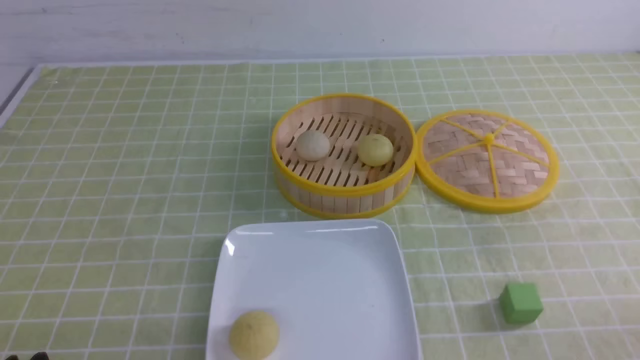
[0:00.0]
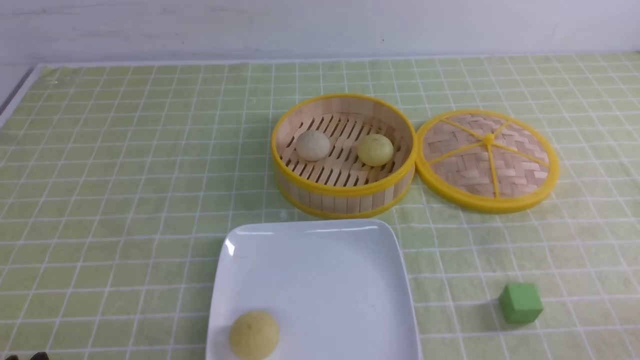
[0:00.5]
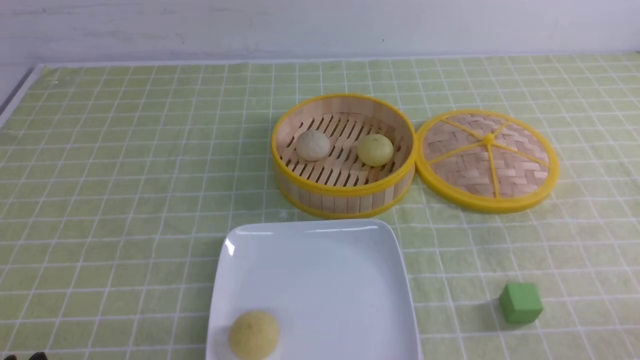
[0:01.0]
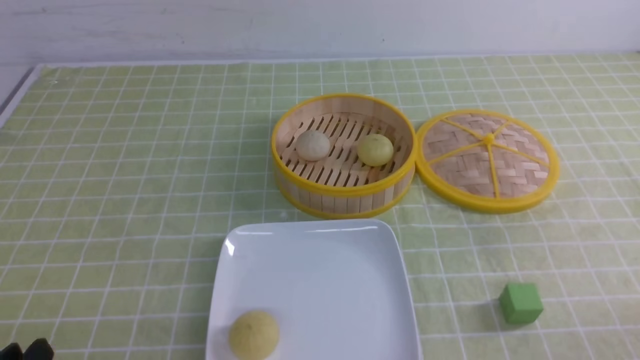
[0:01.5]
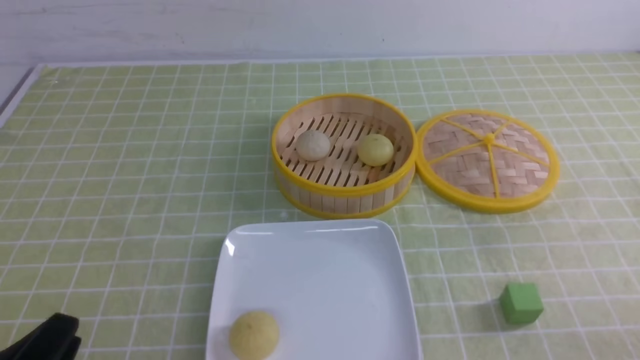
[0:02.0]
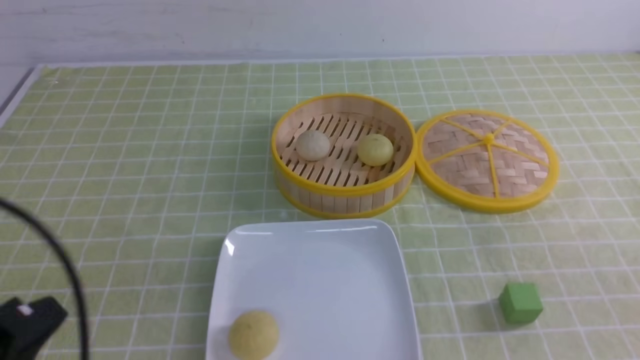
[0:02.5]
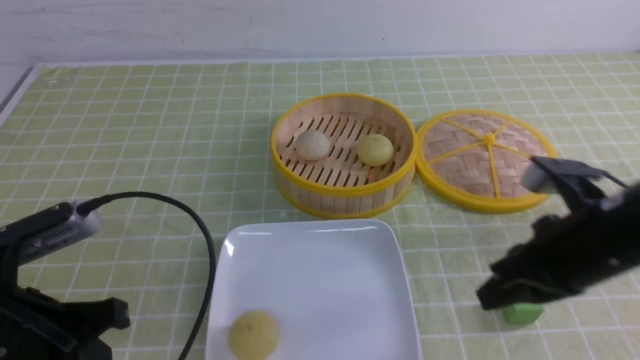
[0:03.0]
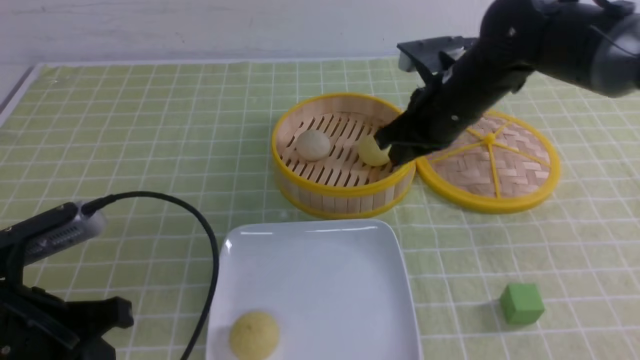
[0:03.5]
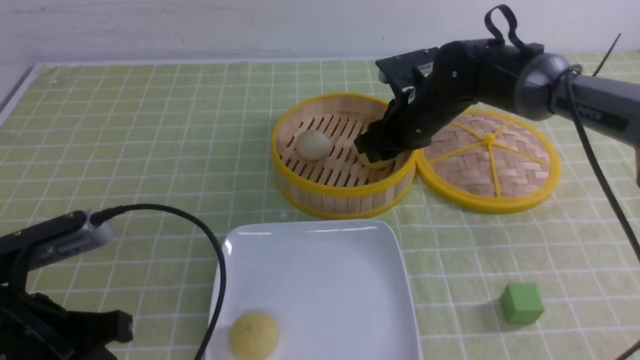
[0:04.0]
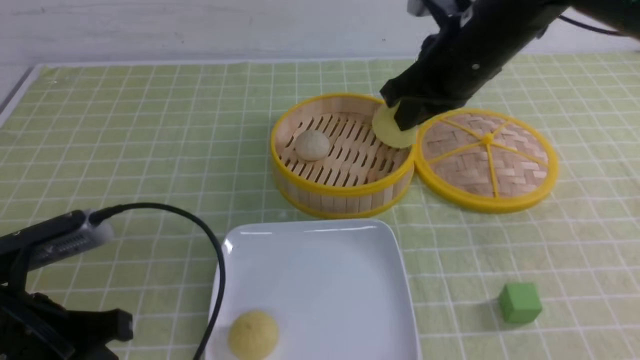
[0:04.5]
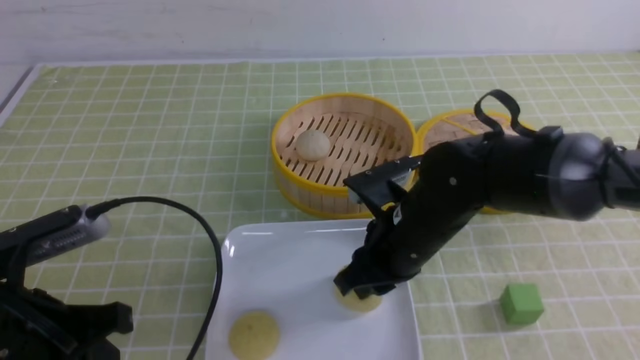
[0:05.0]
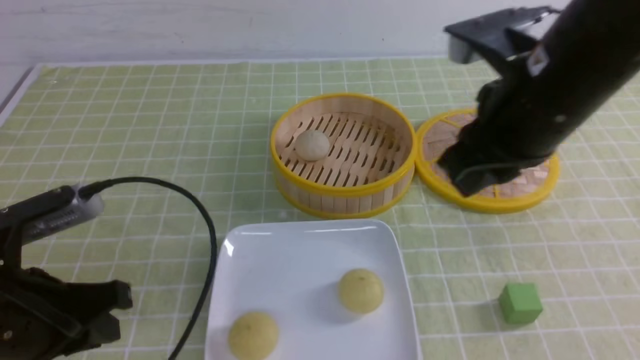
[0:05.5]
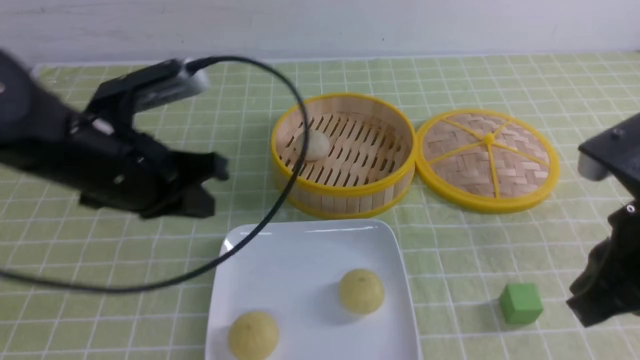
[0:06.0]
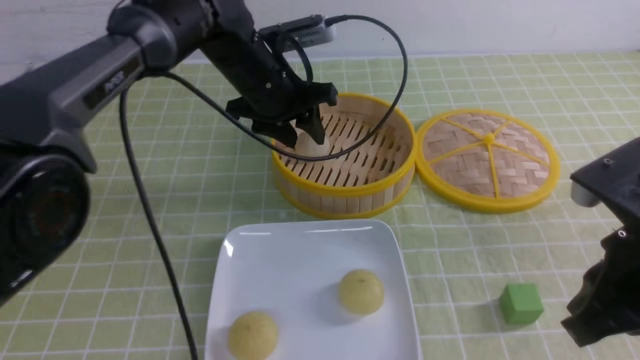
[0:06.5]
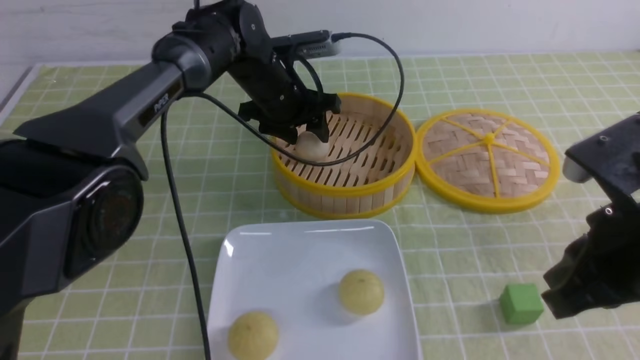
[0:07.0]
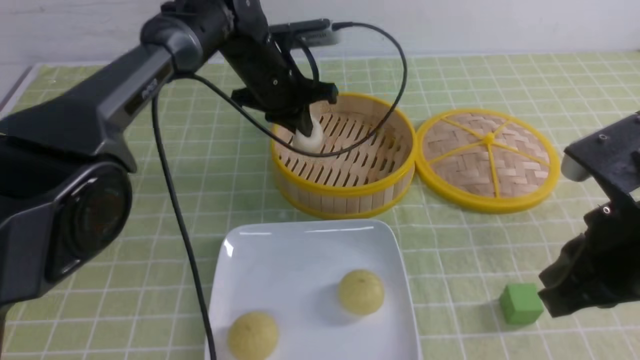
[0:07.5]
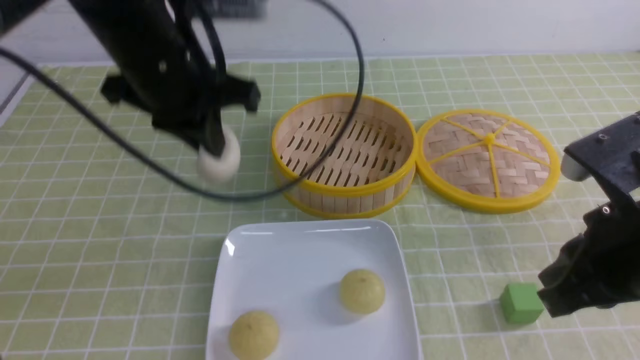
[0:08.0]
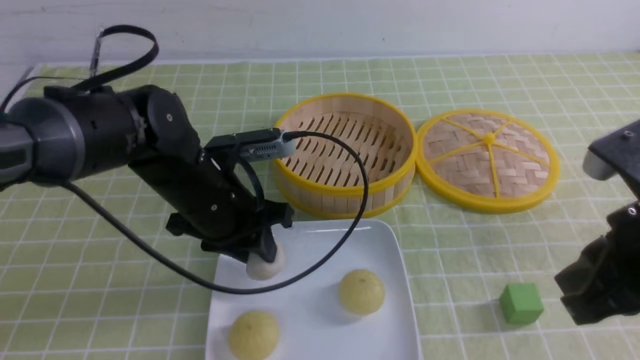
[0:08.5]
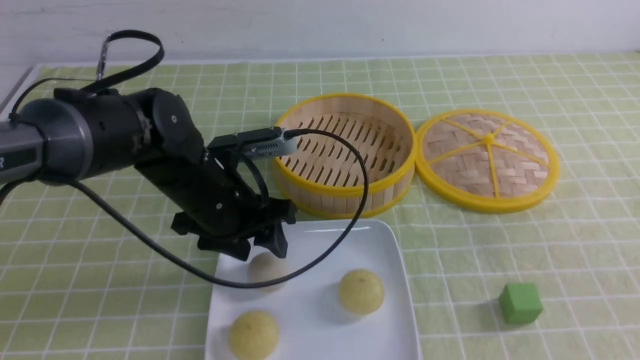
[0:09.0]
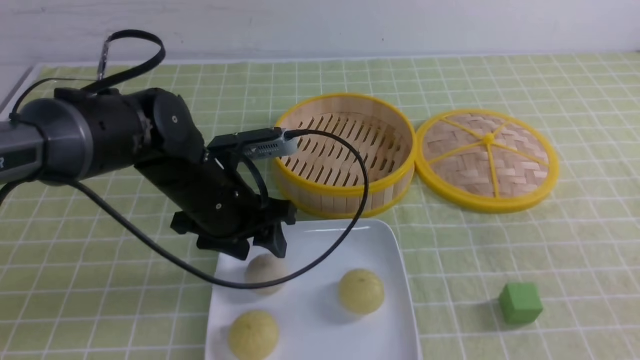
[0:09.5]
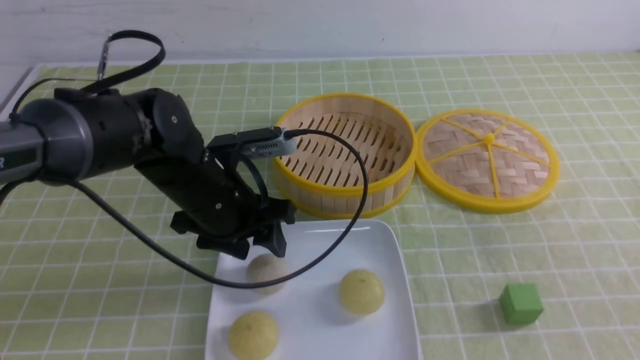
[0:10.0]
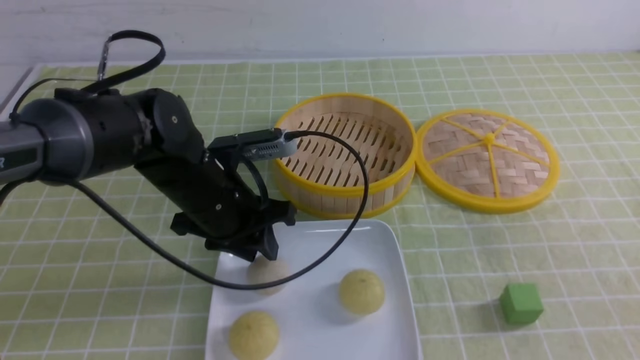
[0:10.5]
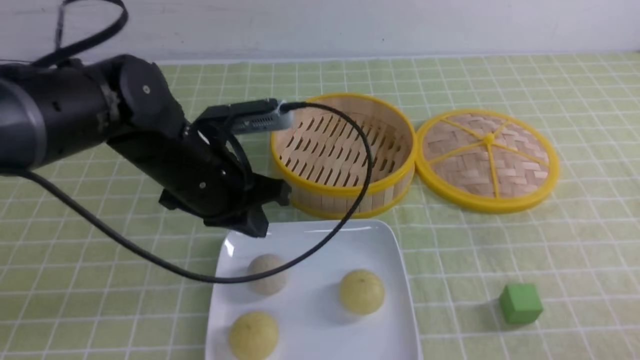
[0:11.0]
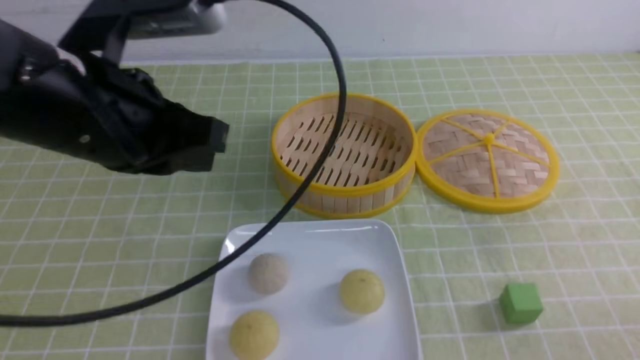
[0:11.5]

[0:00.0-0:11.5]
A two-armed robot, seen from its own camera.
Step, 0:00.0 to 0:04.0: use the right arm to grab the steamed stuffed bun that is closest to it.
Step, 0:04.5 to 0:05.0: use the right arm to put the steamed stuffed bun into the plate.
Step, 0:05.5 to 0:07.5: use the left arm to grab the steamed stuffed bun that is closest to it.
Step, 0:08.0 to 0:08.5: use the left arm to put the steamed stuffed bun into the plate.
0:02.0 to 0:04.0: The left gripper moves forward, about 10 cm. Meanwhile the right gripper heads forward and to the left, covering some 40 cm, and closes, then reopens.
0:04.0 to 0:06.0: The left gripper goes roughly 15 cm forward, to the right and upward; the right gripper shifts some 30 cm backward, and closes its fingers.
0:06.0 to 0:07.5: The left gripper heads forward and to the right, covering some 20 cm, and opens, then closes once more.
0:07.5 to 0:09.5: The right gripper moves backward and to the right, approximately 15 cm. The left gripper goes roughly 15 cm backward and downward, and opens its fingers.
0:09.5 to 0:11.5: The left gripper is displaced upward and backward by roughly 20 cm, and closes. The right gripper is displaced downward by roughly 15 cm.

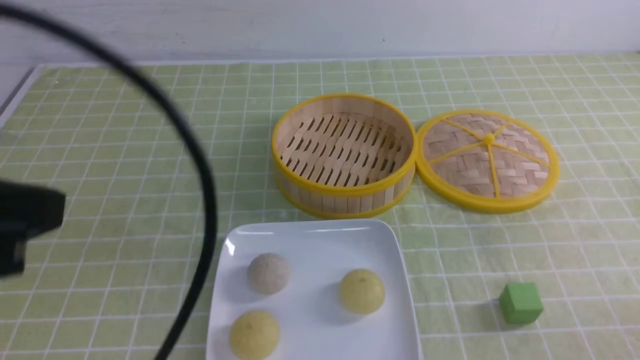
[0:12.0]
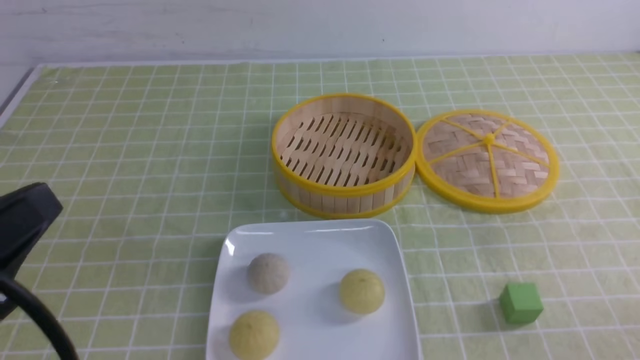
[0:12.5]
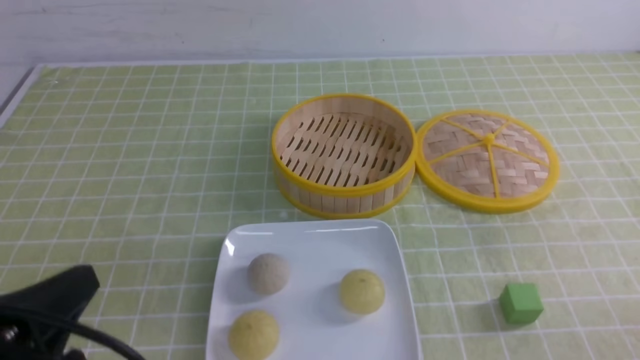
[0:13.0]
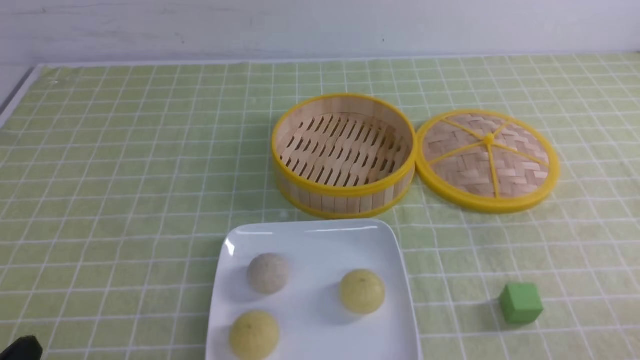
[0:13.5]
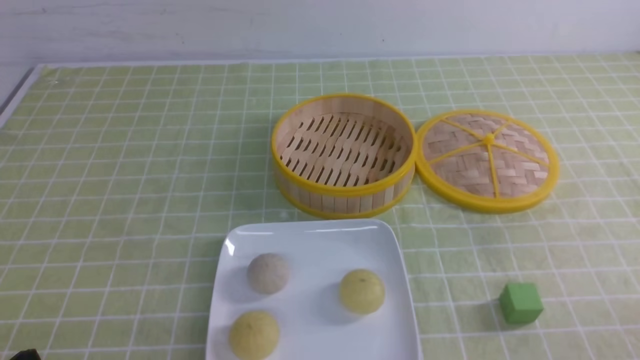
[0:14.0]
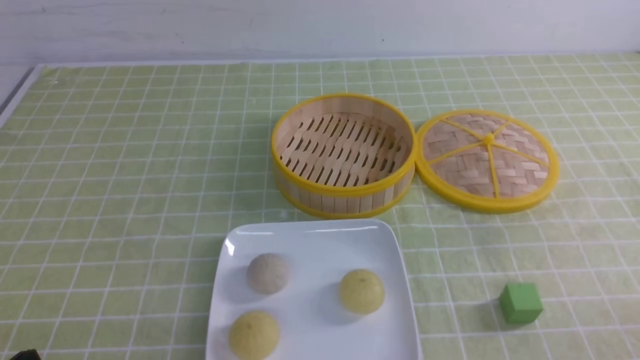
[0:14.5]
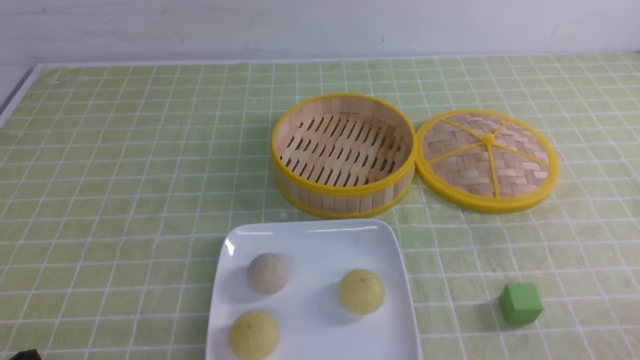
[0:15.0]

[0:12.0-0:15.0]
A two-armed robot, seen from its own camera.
0:12.0 to 0:13.5: The left gripper moves downward, some 20 cm.
0:13.5 to 0:15.0: The two grippers keep their place.

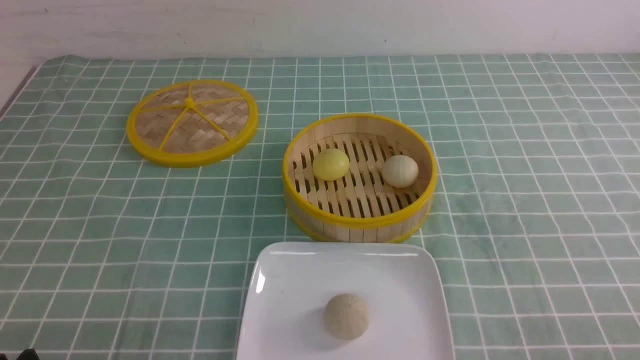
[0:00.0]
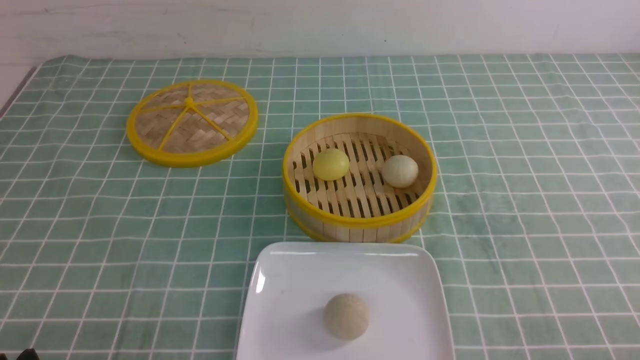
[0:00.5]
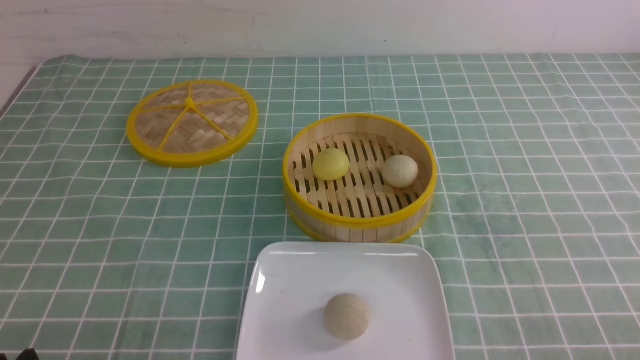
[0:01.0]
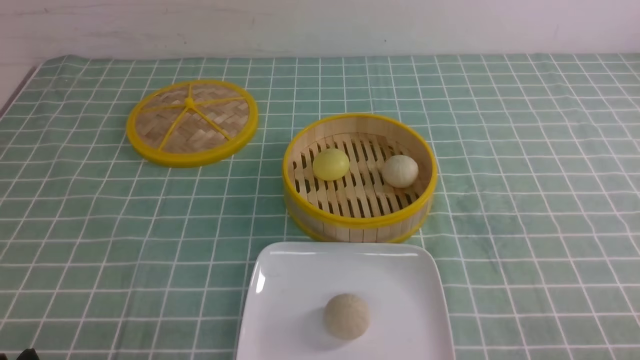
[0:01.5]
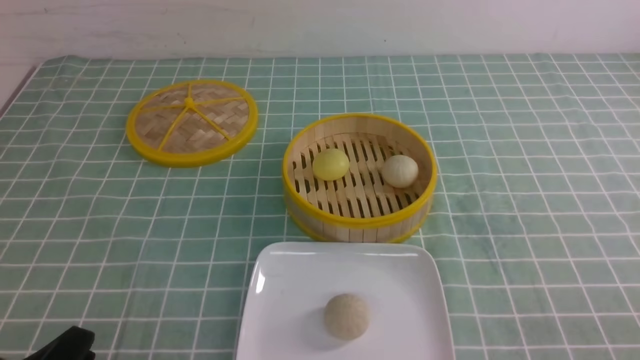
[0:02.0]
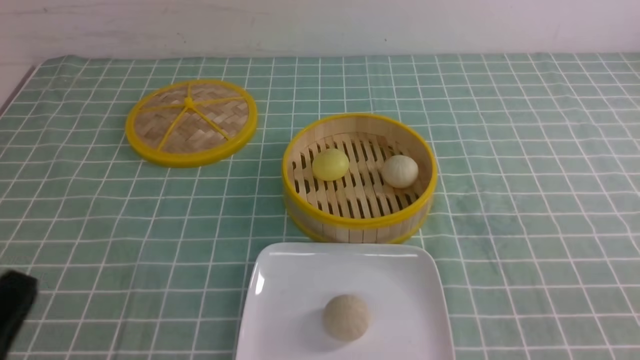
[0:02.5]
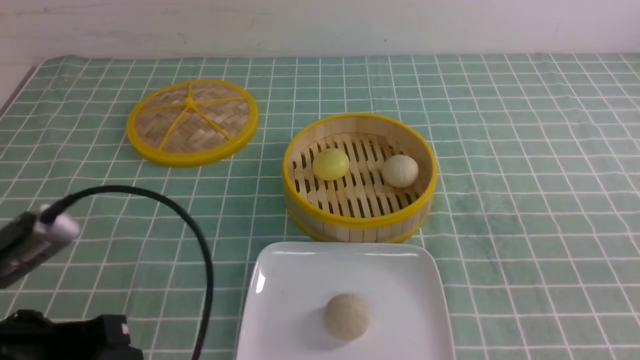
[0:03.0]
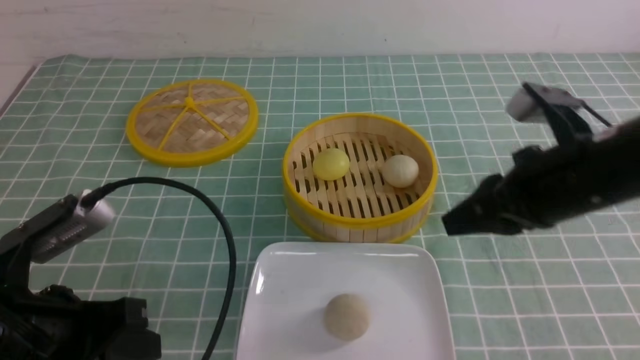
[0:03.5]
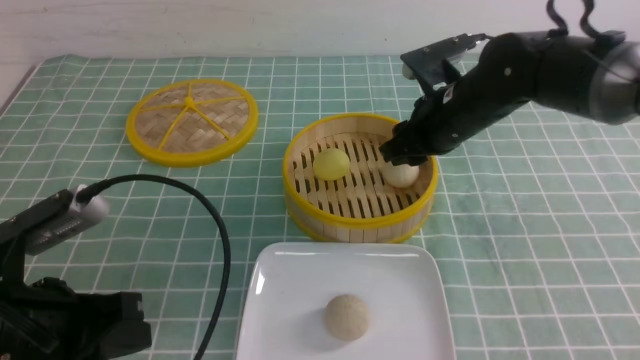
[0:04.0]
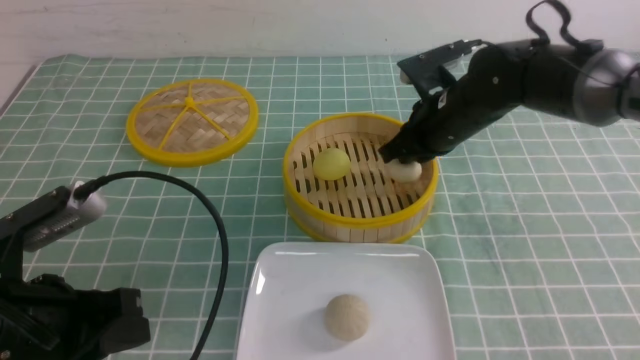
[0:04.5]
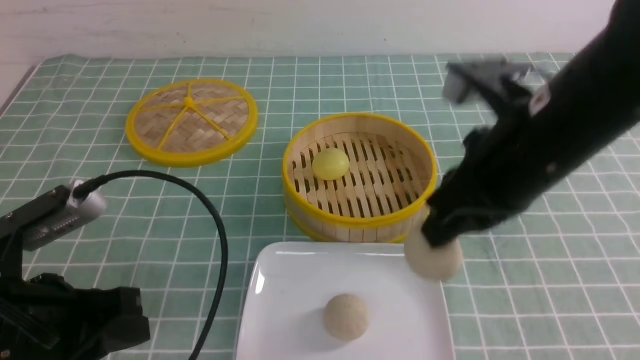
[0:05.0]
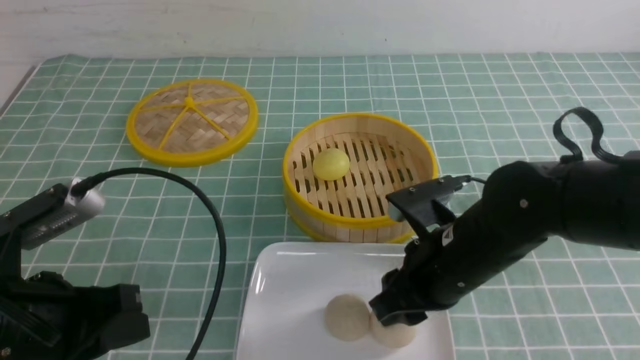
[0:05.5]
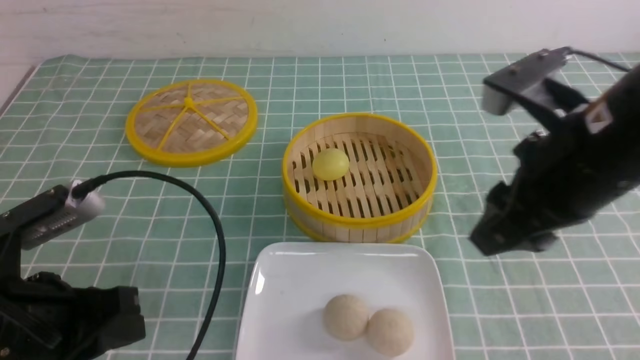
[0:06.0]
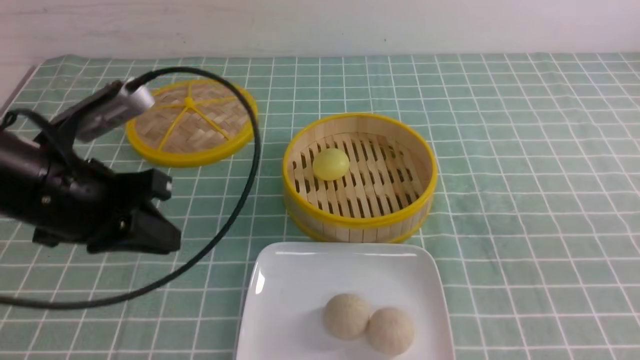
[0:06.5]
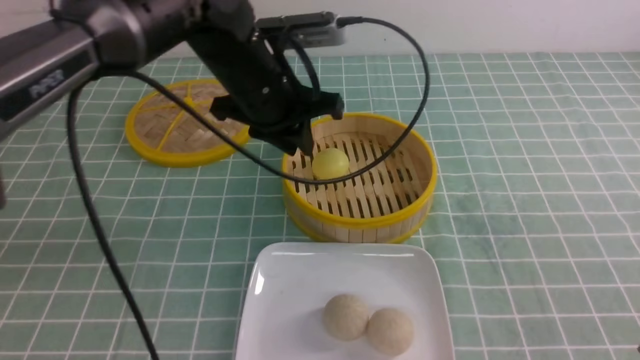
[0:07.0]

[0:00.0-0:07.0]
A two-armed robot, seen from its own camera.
Step, 0:00.0 to 0:04.0: use the right arm to grab the steamed stuffed bun that is closest to it.
Step, 0:05.0 to 0:05.5: use the right arm to put the steamed stuffed bun into the plate.
0:02.0 to 0:03.5: The right gripper travels forward, to the left and upward by approximately 25 cm, and closes, then reopens, while the left gripper is displaced forward and upward by roughly 10 cm, and closes.
0:03.5 to 0:05.0: The right gripper heads to the left, covering some 5 cm, reaches about 15 cm forward, then returns, and opens, then closes once more.
0:05.0 to 0:07.0: The right gripper travels backward and to the right by roughly 20 cm, and opens, then closes again. Meanwhile the left gripper goes roughly 30 cm forward and to the right, and opens.
